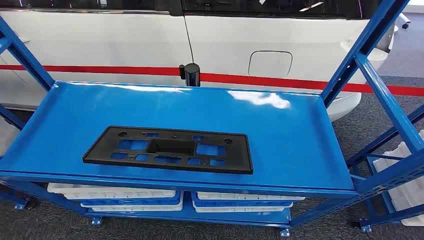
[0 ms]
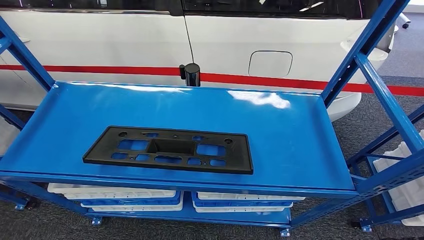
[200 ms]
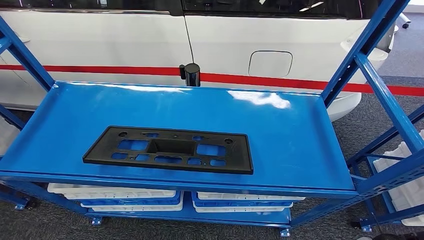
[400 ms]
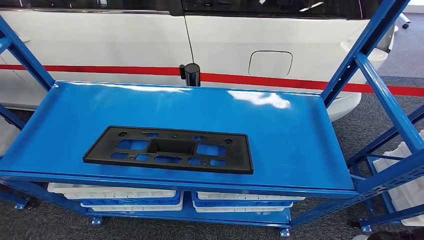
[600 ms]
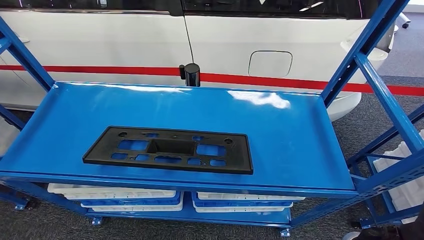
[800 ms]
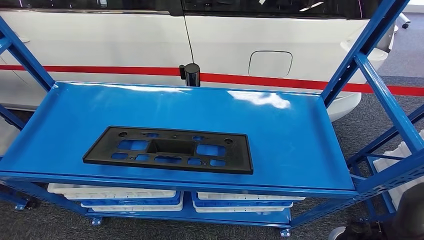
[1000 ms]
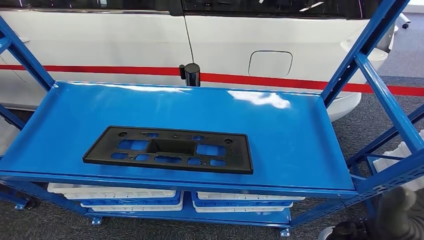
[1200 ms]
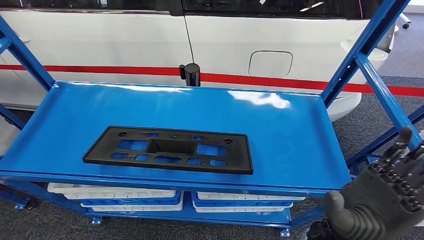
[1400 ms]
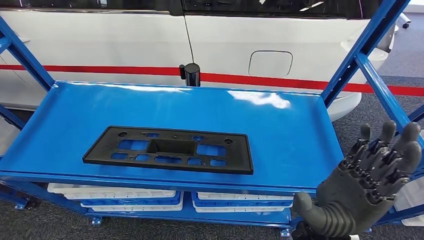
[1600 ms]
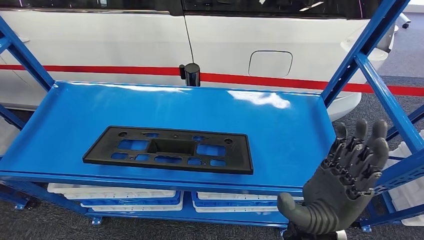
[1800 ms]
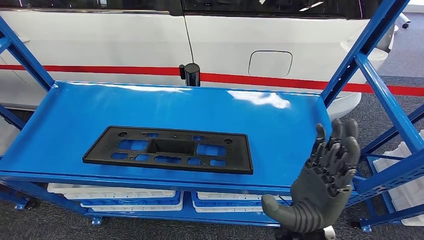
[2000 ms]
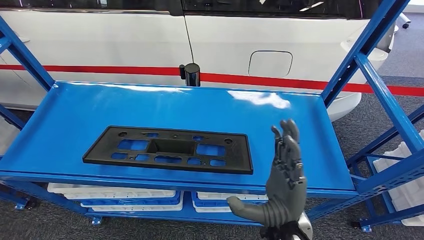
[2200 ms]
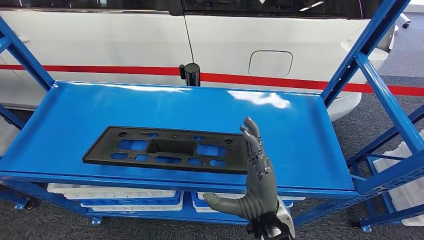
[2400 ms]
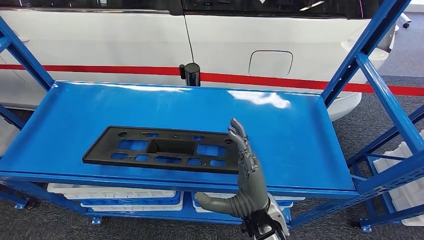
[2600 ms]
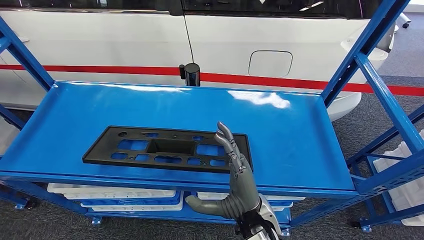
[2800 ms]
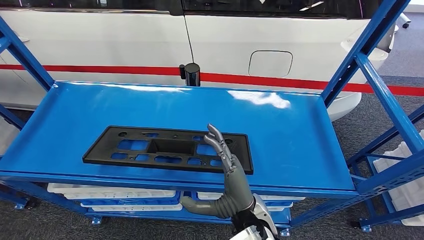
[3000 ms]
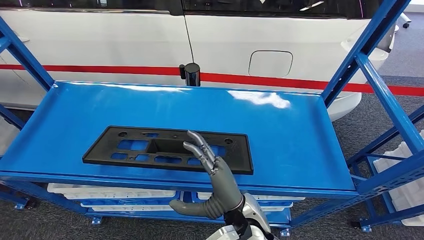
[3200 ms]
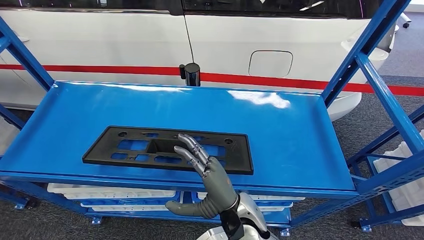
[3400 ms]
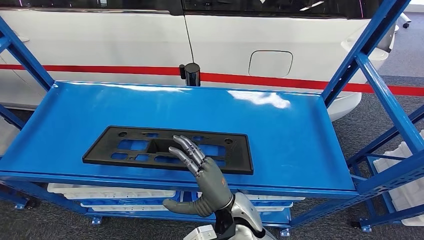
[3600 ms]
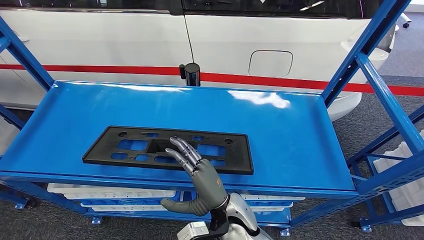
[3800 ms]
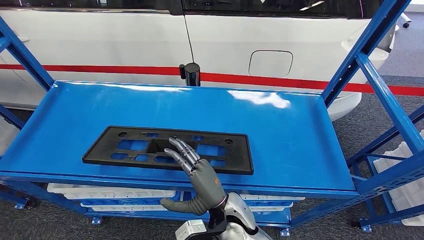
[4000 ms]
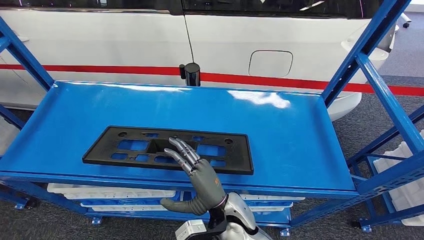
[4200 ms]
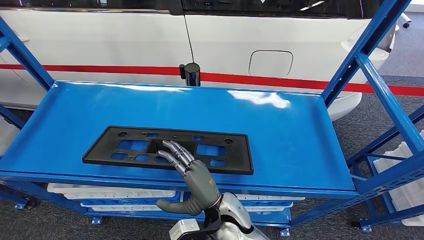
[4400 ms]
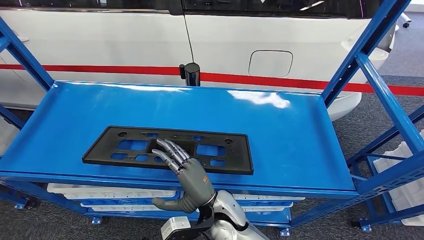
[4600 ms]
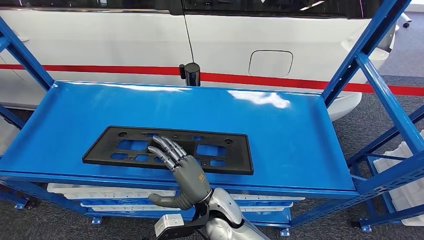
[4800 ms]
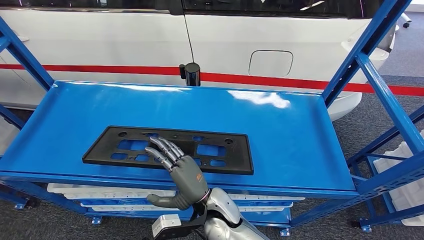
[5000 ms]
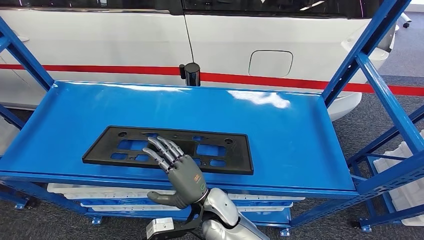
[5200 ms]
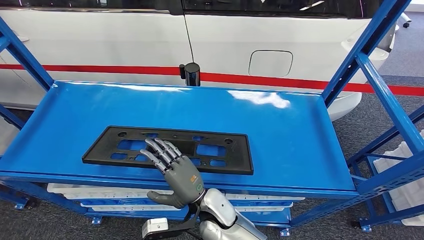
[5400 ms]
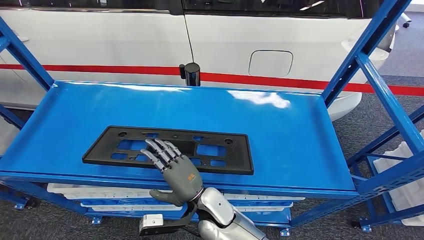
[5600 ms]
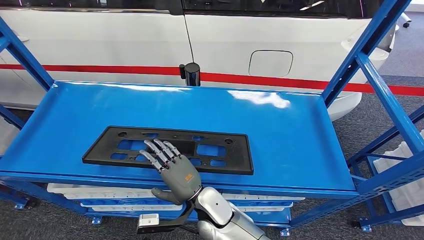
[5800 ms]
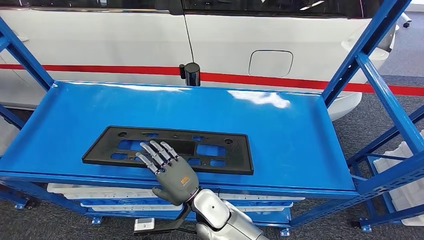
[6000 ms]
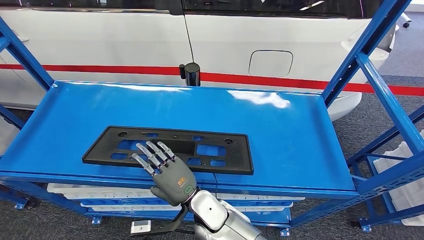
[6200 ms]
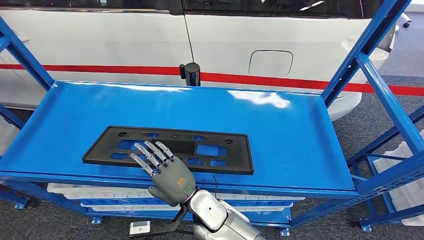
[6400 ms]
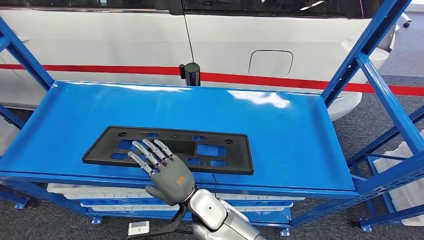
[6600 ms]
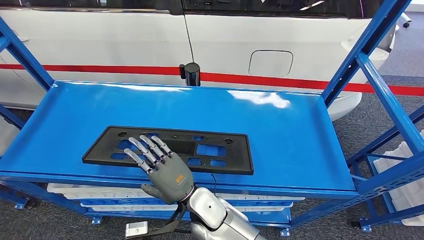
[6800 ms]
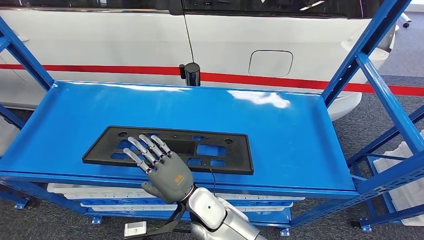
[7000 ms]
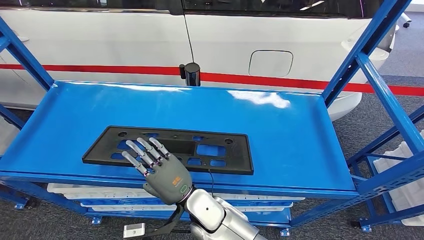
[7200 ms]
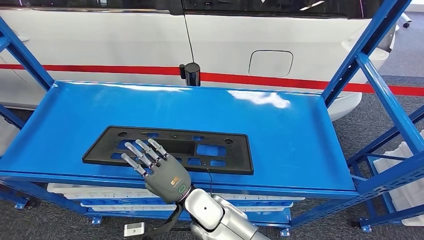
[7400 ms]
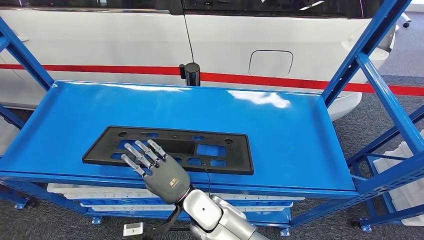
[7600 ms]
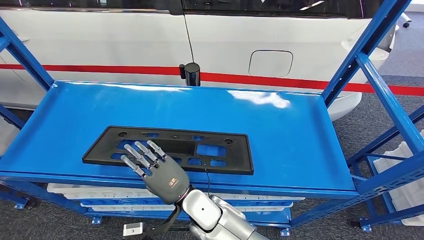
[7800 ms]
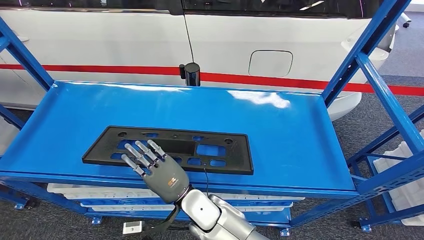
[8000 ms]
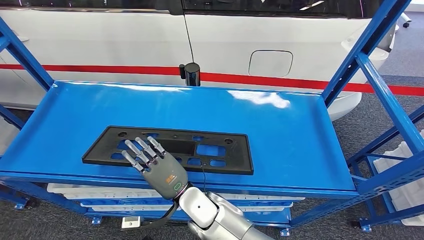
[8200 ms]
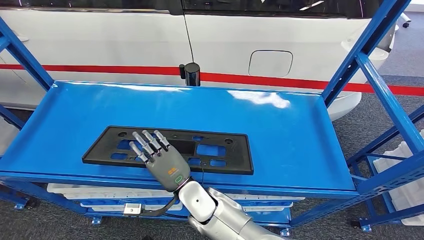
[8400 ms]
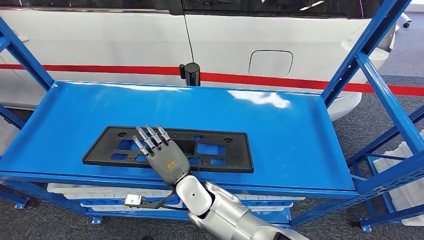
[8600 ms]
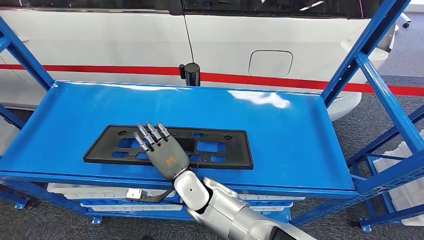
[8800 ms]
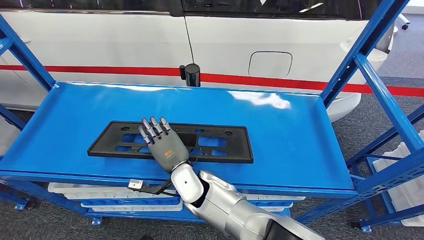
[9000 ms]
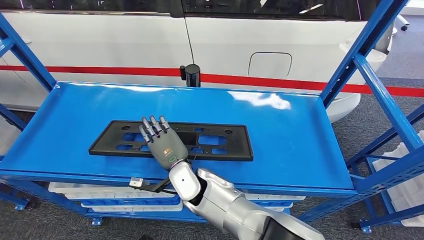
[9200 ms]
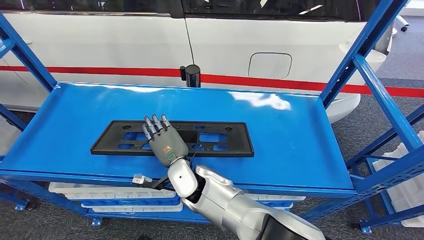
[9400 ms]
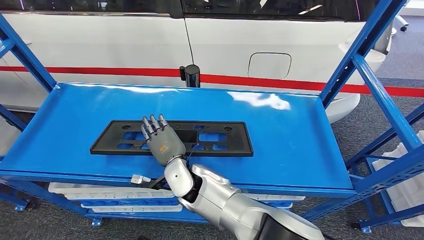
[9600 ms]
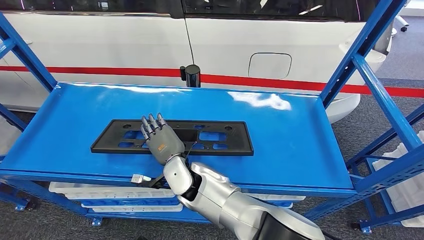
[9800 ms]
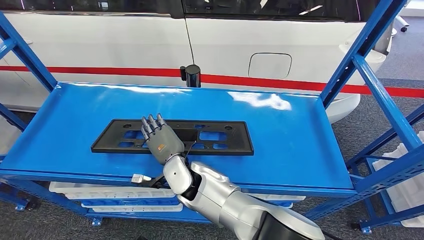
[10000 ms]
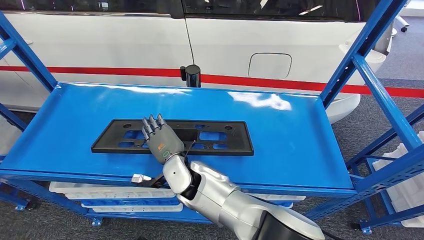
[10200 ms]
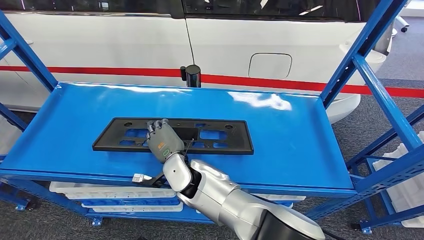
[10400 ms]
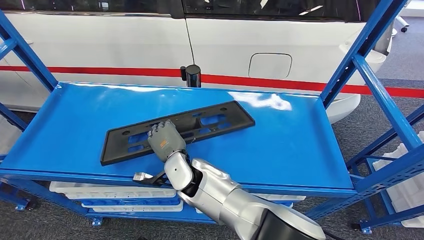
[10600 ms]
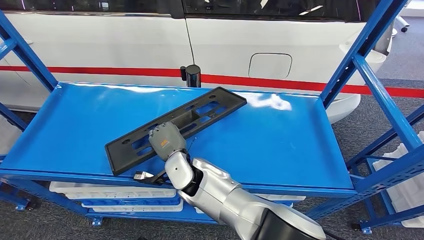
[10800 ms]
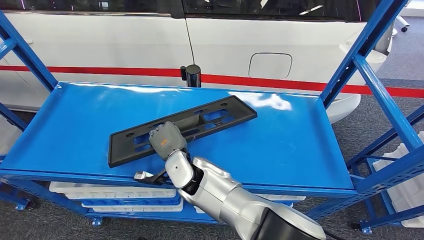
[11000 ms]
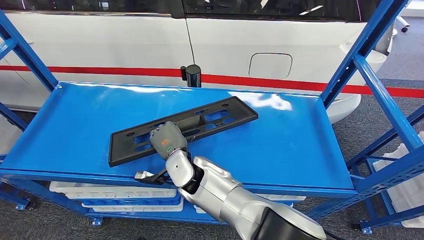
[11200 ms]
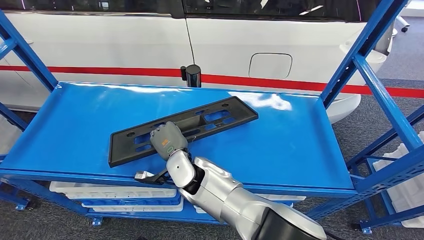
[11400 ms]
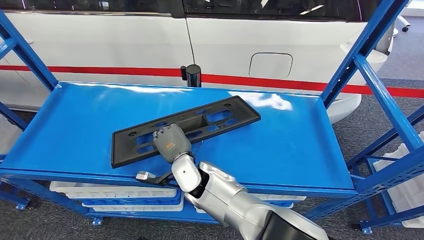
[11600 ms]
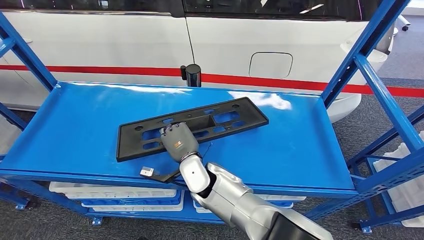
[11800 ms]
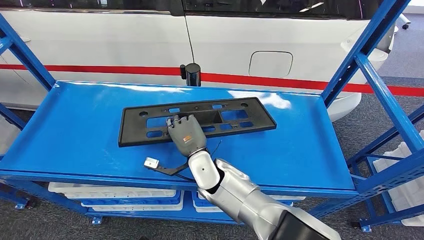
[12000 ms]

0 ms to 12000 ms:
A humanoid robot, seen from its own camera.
1600 ms to 3000 ms: The right hand heads to the left and downward, covering approximately 10 cm.
3000 ms to 4400 ms: The right hand shifts by about 5 cm.
4400 ms to 6000 ms: The right hand heads to the left, covering roughly 5 cm.
6000 ms to 7600 ms: The hands stay close to where they were, moving slightly.
7600 ms to 9000 ms: The right hand is displaced forward by some 5 cm.
9000 ms to 10400 ms: The hands stay close to where they were, moving slightly.

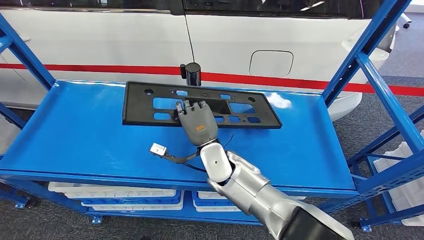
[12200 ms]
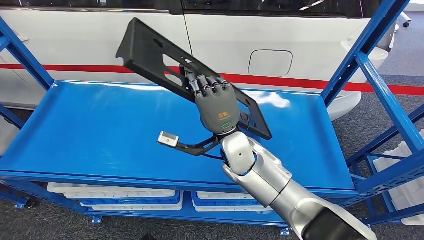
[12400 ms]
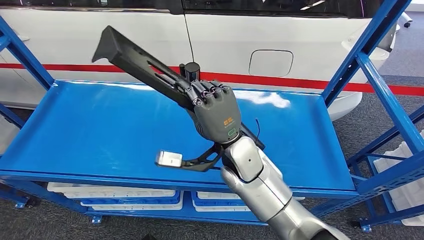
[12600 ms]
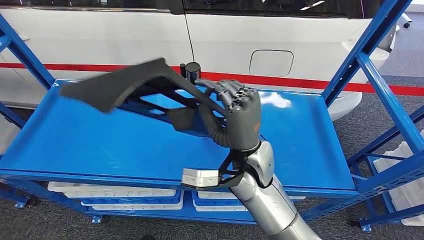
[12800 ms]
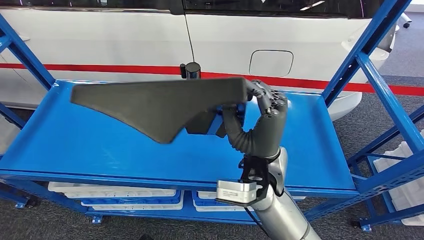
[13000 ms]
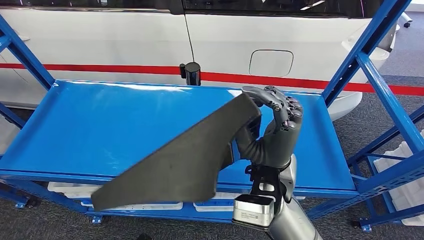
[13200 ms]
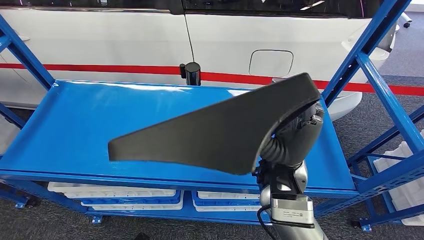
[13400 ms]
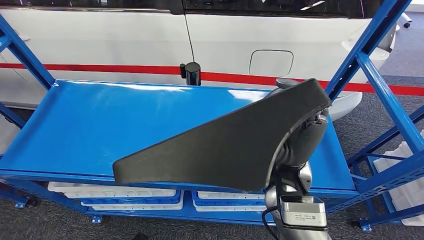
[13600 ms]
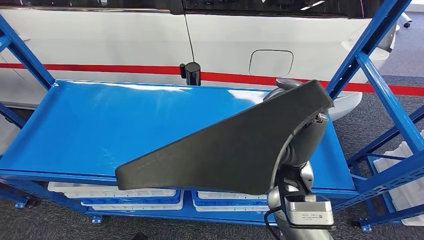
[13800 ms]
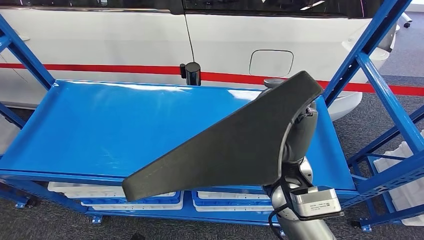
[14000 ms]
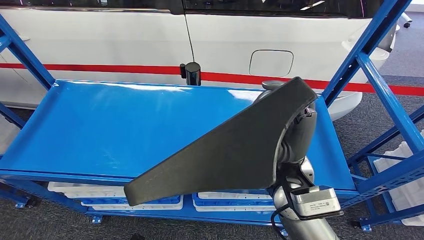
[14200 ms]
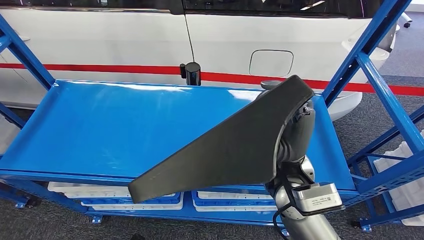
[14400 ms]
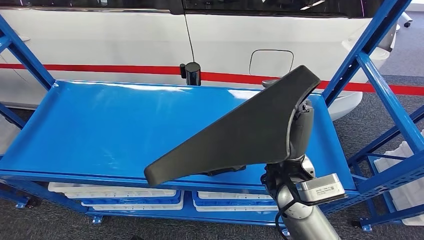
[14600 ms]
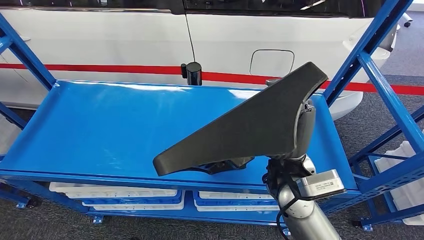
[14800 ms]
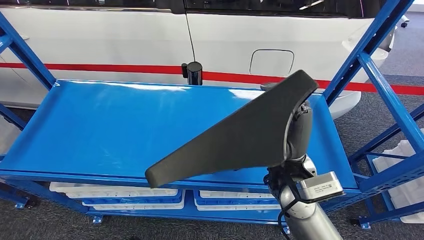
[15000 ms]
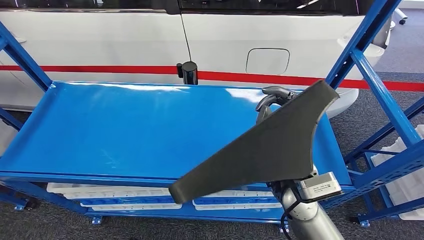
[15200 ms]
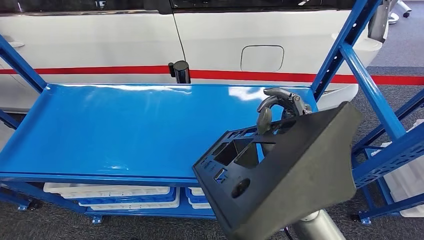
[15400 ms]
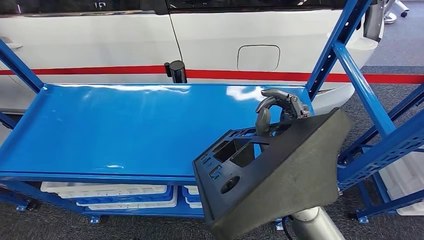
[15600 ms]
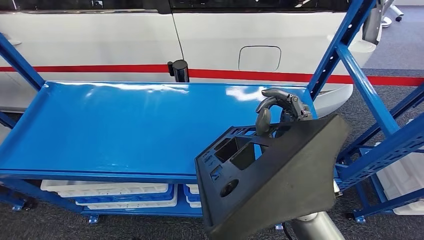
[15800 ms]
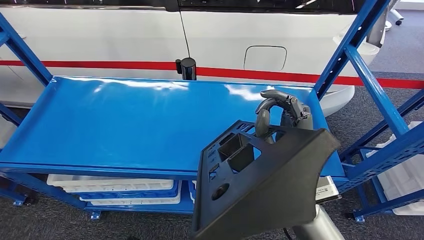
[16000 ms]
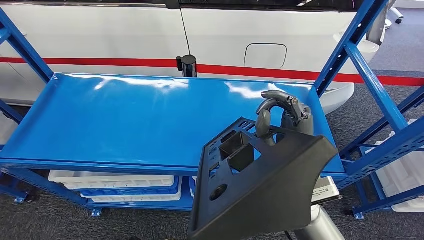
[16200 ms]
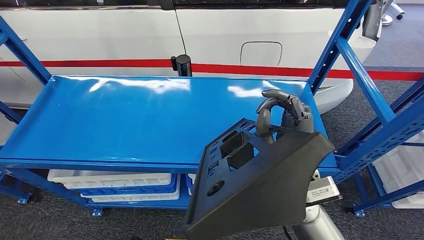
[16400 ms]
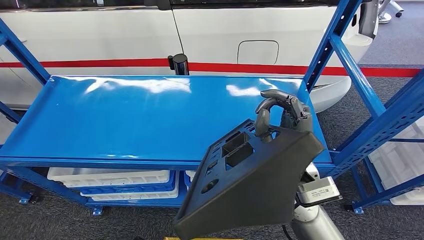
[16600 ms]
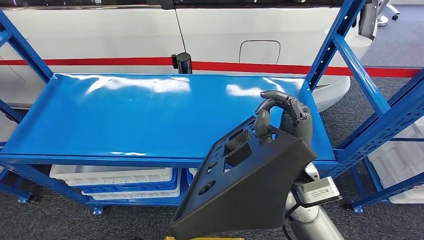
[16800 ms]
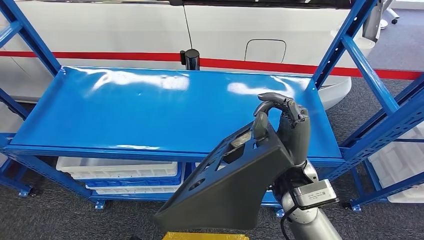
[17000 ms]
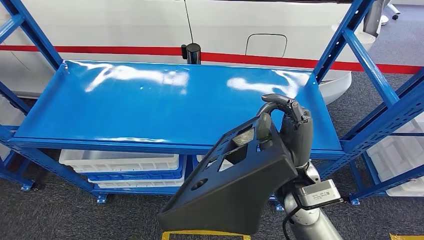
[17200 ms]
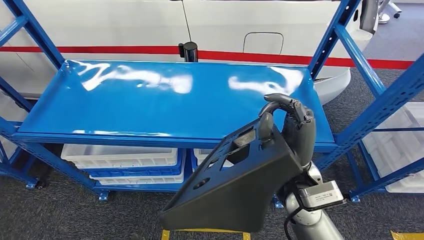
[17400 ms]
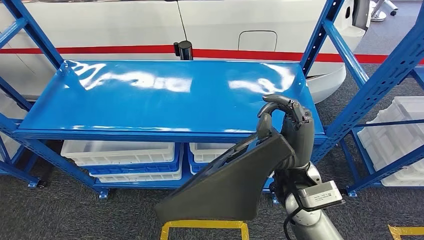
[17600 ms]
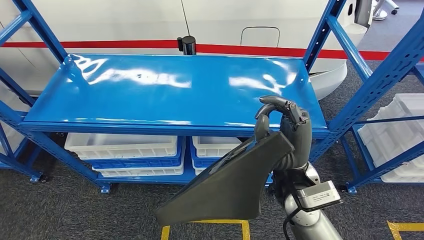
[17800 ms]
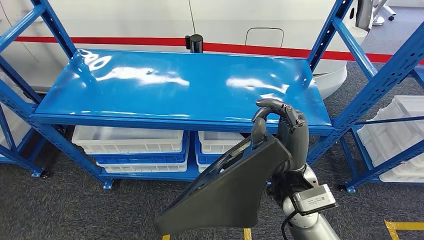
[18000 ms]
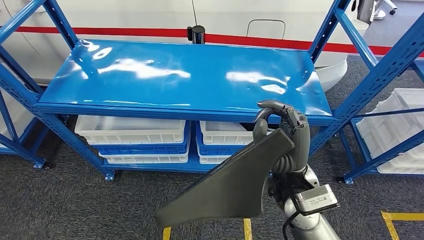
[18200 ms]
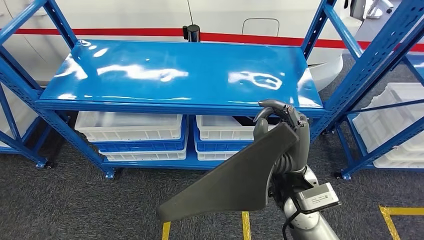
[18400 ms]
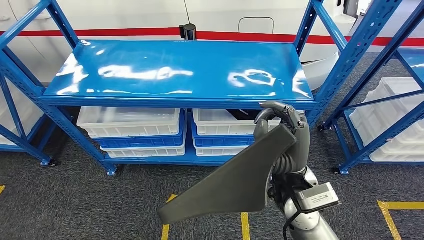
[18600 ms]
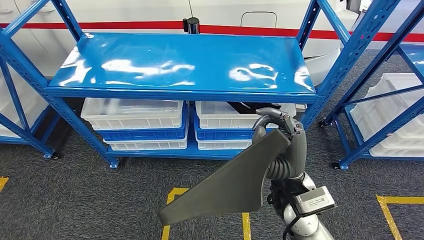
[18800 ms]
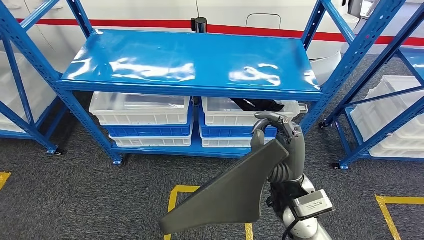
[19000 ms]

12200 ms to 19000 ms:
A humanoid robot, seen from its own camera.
Step, 12200 ms to 17200 ms: Pick up the large material from the shelf.
12200 ms to 13600 ms: The right hand heads upward, to the right and backward, covering about 20 cm.
13600 ms to 15000 ms: The hands move only a little.
